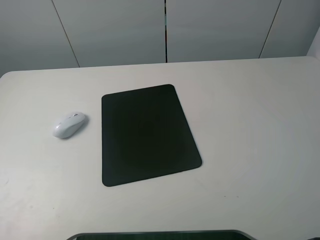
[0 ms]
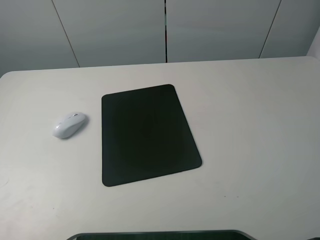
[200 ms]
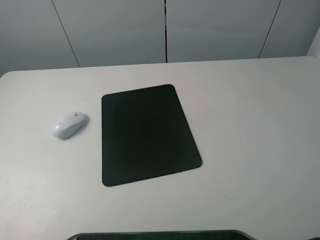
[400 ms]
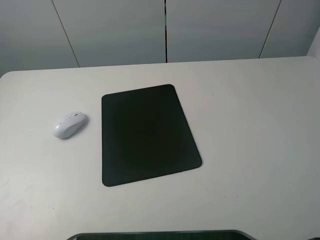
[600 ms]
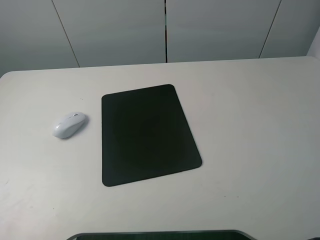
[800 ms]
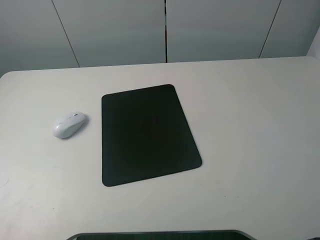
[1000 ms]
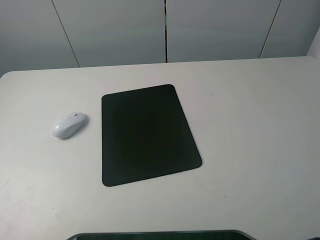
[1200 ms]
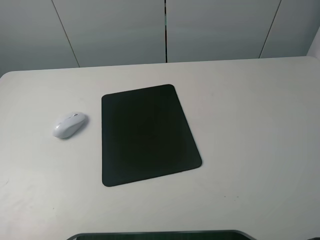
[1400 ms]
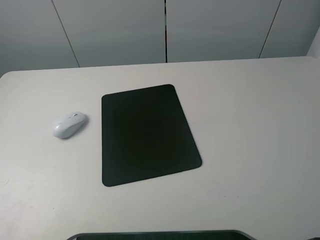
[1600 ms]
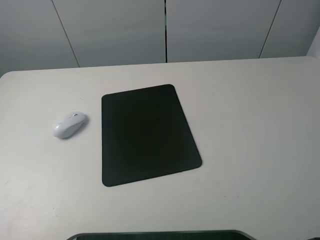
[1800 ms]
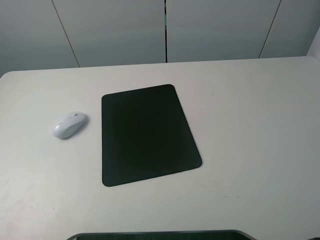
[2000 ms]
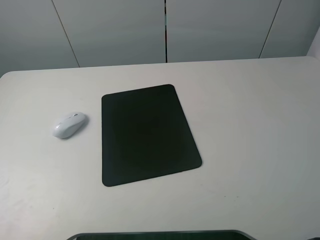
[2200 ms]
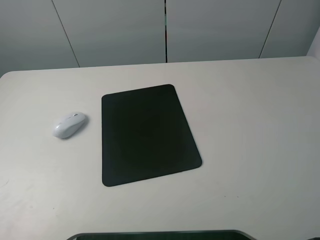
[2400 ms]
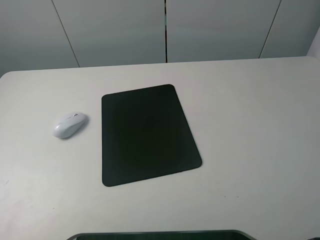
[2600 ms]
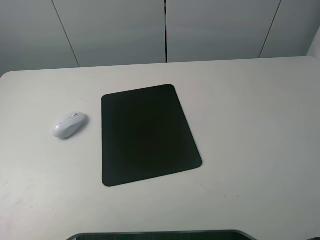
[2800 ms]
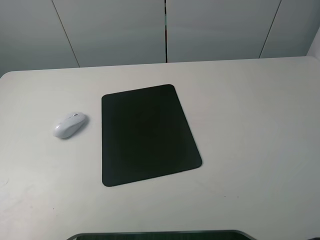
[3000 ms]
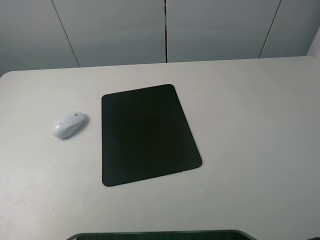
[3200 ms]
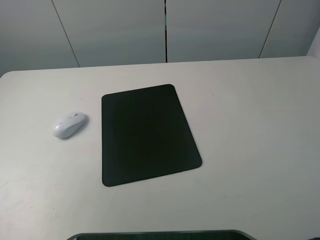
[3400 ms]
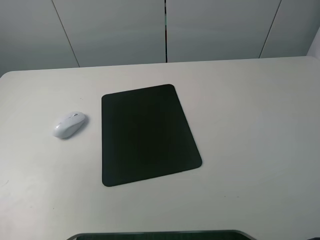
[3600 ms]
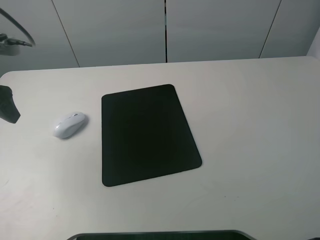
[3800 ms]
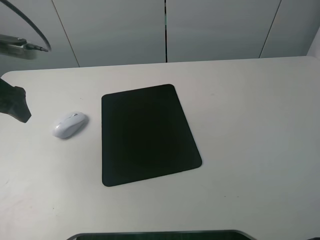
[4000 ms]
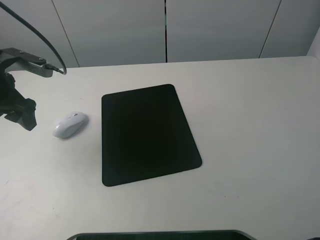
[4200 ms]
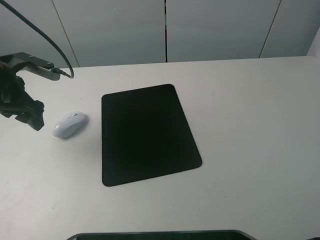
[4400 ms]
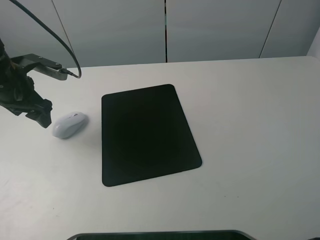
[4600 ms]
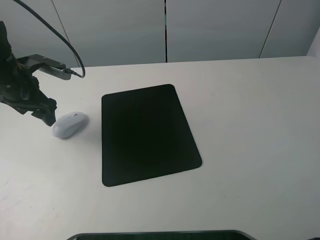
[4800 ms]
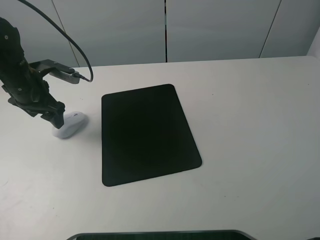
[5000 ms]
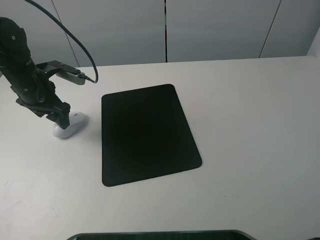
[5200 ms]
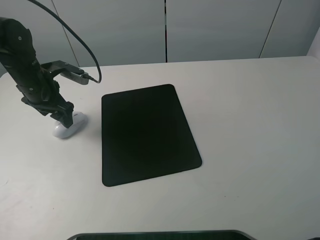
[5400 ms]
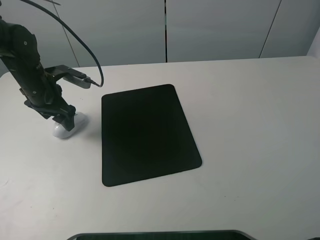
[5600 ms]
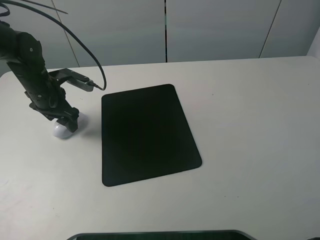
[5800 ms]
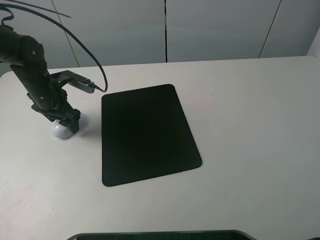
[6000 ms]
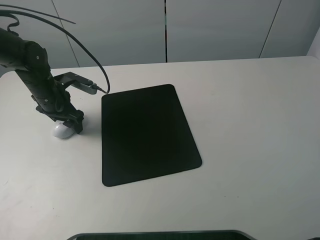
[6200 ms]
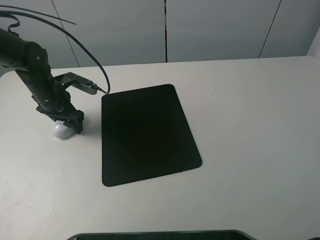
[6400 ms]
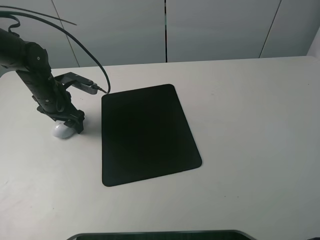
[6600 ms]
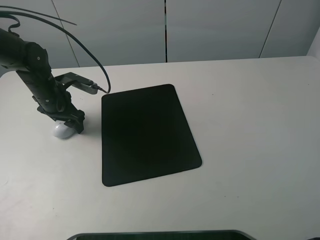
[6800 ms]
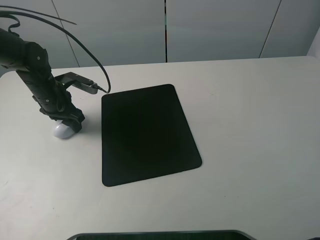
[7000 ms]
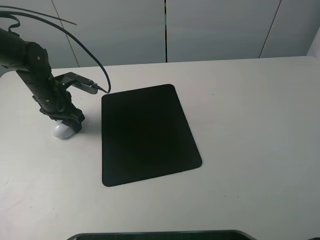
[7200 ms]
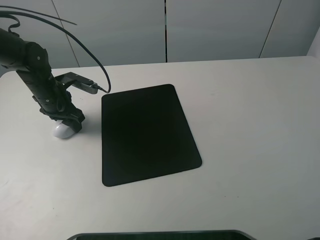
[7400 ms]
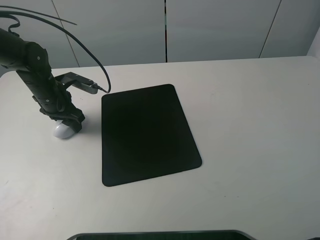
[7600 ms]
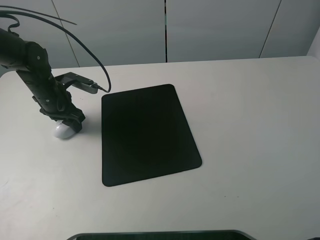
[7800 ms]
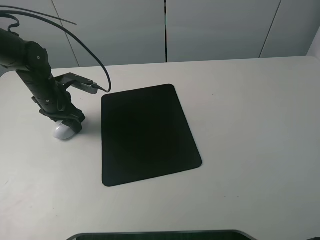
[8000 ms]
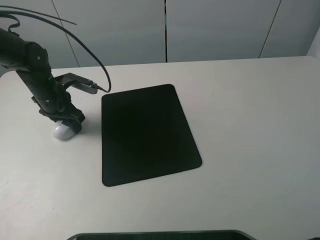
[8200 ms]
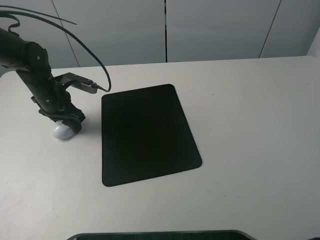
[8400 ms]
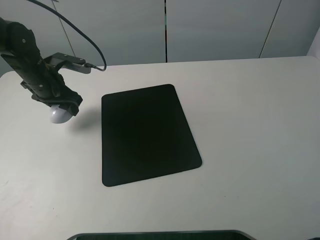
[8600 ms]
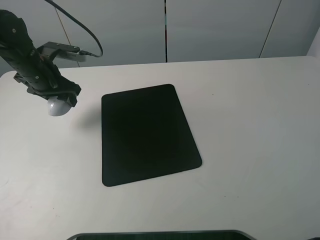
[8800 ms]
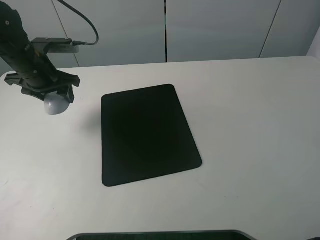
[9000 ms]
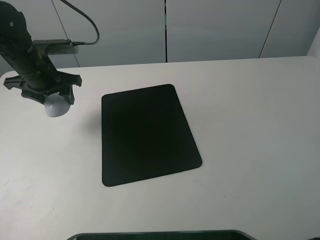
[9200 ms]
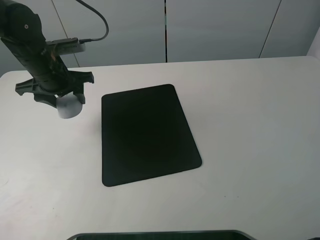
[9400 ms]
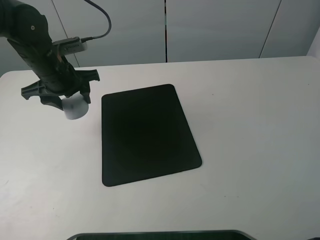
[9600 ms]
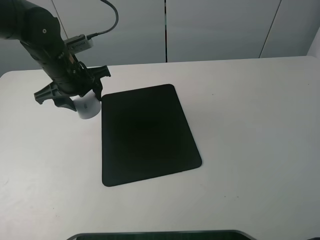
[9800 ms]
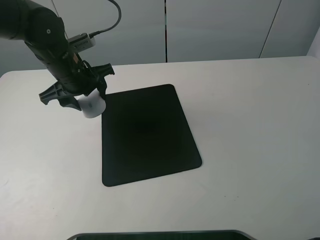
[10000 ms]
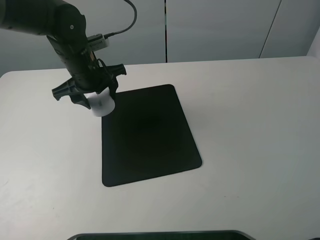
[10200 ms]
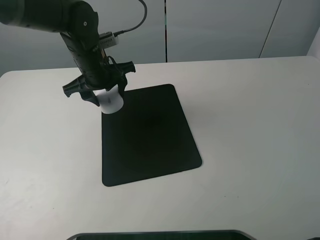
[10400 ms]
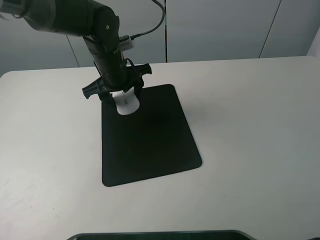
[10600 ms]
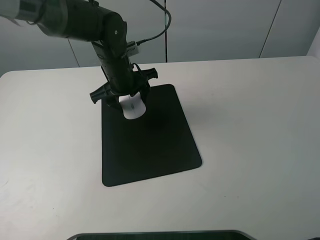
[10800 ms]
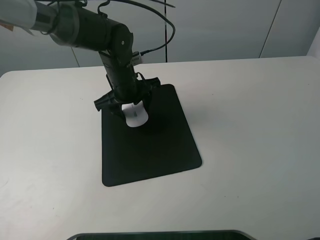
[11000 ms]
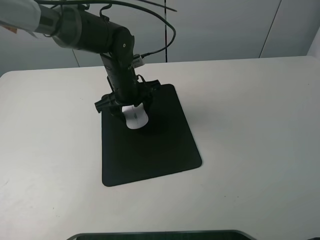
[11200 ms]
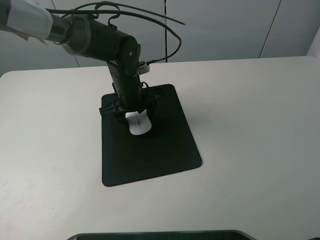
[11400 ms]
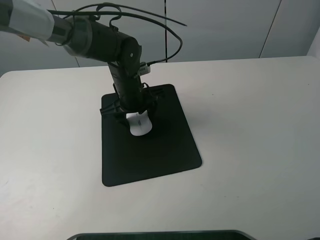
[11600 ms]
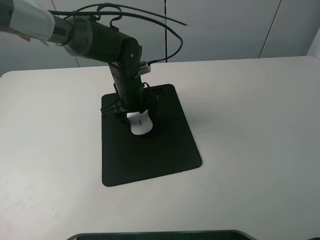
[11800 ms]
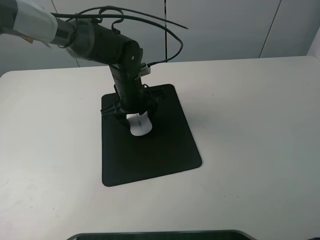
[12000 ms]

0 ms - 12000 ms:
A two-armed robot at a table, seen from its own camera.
Step, 0 ms - 7600 ms: Grasp the mouse with the left gripper.
0 ms - 1600 ms: Both grippers stay about where they are.
3000 ms - 4400 ms: The left gripper goes about 25 cm forward and downward.
4400 ms - 6000 ms: The left gripper is displaced downward and forward by approximately 10 cm.
6000 ms - 7600 ms: The left gripper closes up.
7600 ms - 9000 ms: The left gripper moves upward, approximately 10 cm.
9000 ms - 10400 ms: The left gripper heads to the right, covering about 15 cm.
10400 ms - 12000 ms: The left gripper shifts roughly 10 cm downward and to the right.

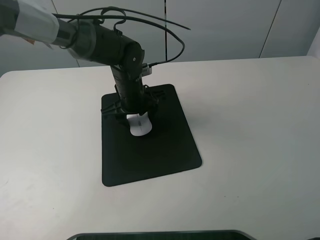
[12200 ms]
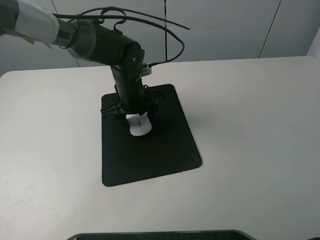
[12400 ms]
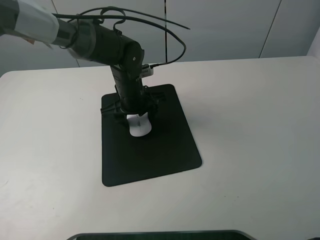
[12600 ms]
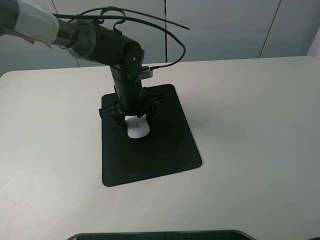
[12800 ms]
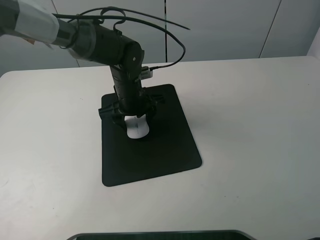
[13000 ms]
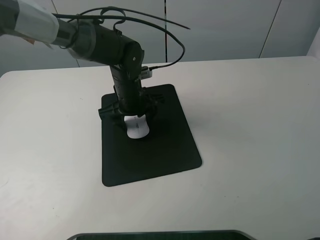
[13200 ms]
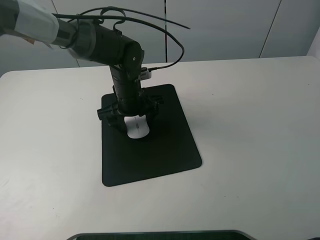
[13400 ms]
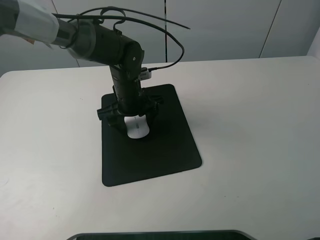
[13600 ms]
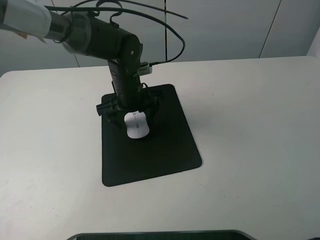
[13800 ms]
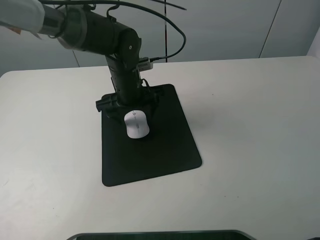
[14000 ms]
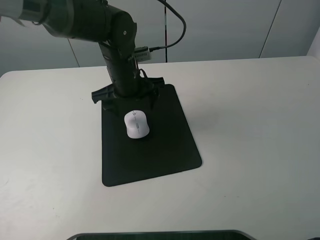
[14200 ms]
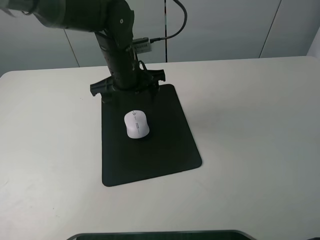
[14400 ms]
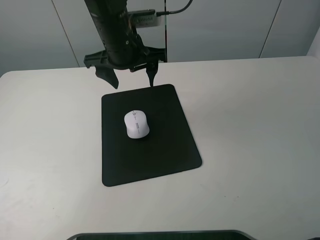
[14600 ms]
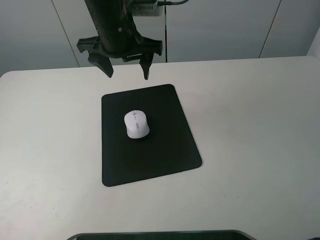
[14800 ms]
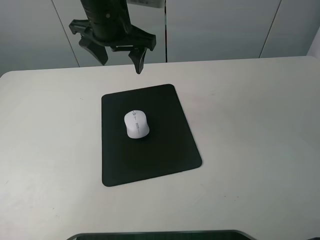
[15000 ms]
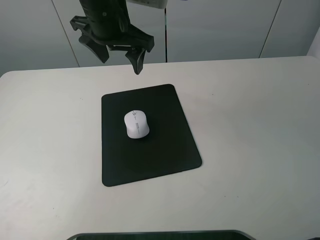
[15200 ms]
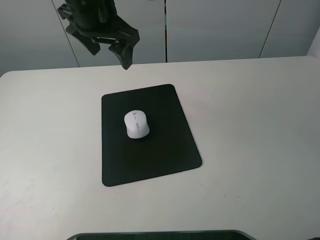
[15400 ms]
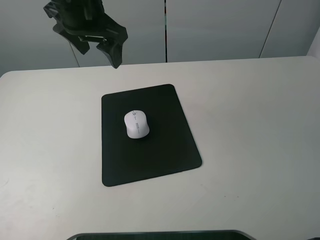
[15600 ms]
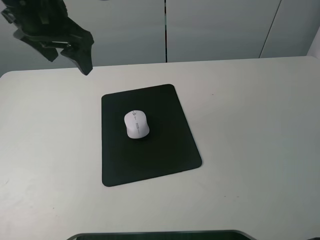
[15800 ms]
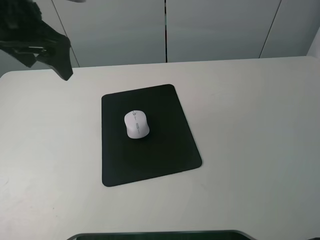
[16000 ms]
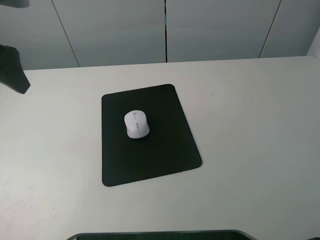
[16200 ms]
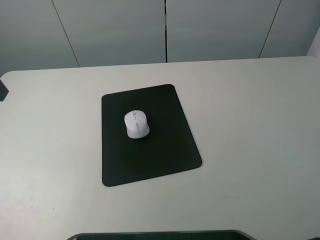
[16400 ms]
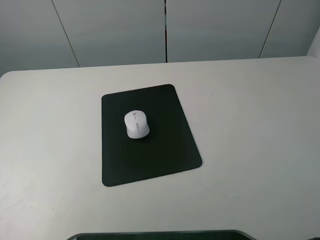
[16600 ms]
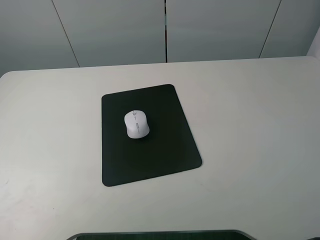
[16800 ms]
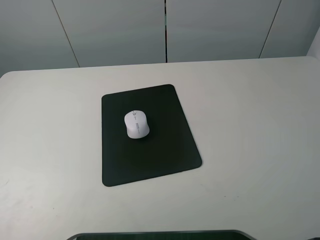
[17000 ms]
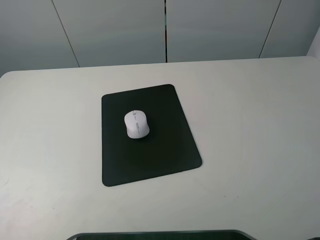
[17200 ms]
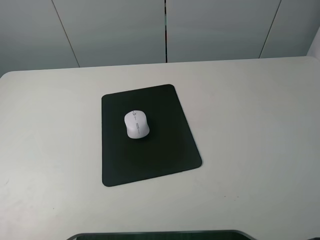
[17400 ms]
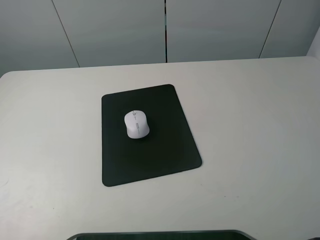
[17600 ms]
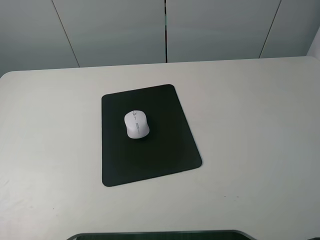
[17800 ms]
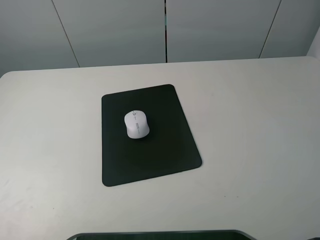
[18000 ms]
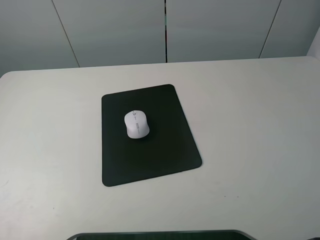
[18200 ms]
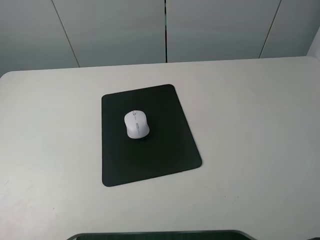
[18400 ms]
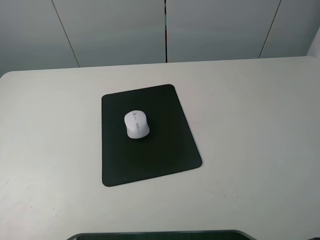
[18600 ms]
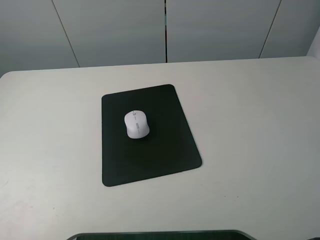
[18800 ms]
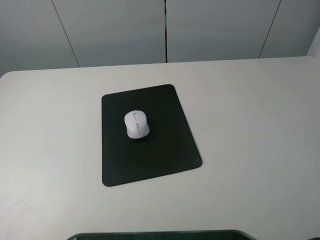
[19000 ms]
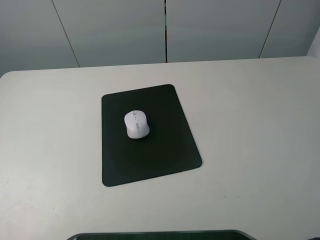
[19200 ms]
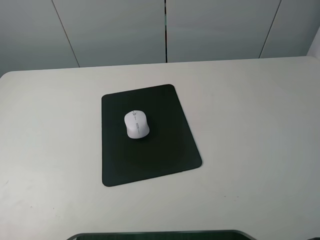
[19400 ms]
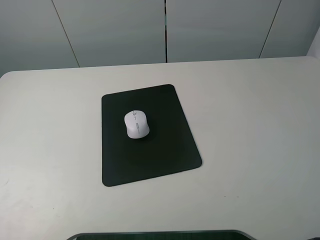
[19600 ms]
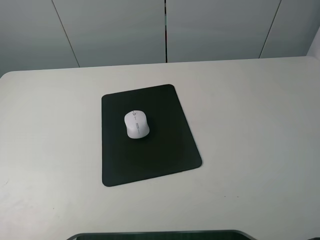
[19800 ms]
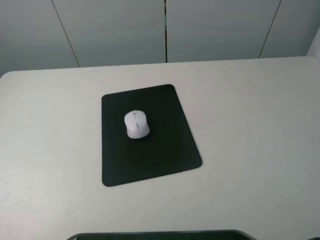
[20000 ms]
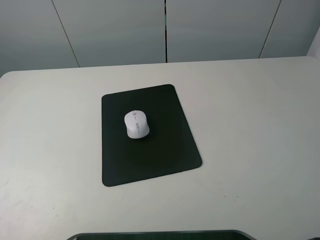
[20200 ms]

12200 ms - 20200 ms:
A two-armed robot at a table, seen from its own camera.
12200 ms - 13800 ms: The left gripper opens up.
13800 ms - 15400 ms: The left gripper shifts some 20 cm upward.
15400 ms - 17000 ms: The left gripper travels backward and to the left by approximately 35 cm.
18600 ms - 20200 ms: Both grippers stay about where they are.

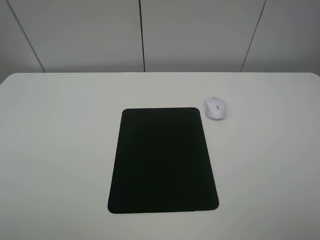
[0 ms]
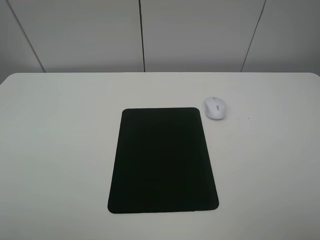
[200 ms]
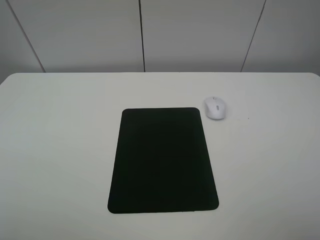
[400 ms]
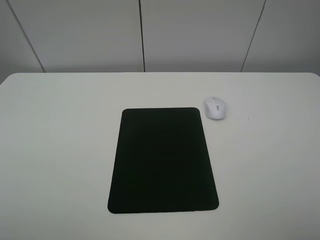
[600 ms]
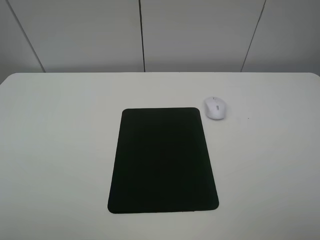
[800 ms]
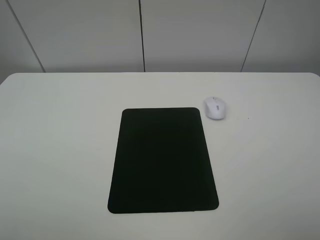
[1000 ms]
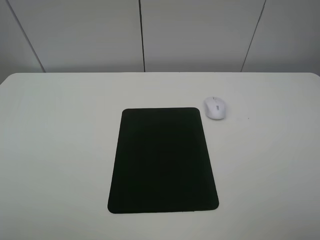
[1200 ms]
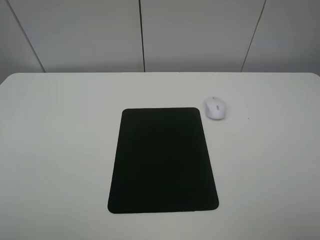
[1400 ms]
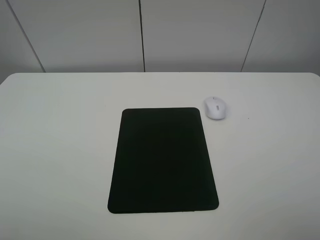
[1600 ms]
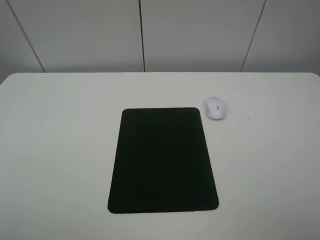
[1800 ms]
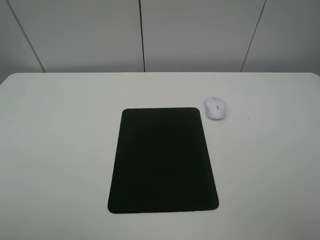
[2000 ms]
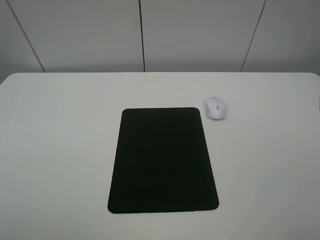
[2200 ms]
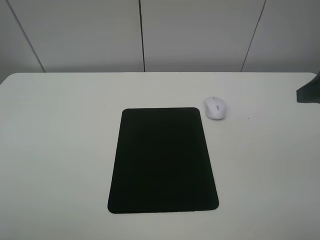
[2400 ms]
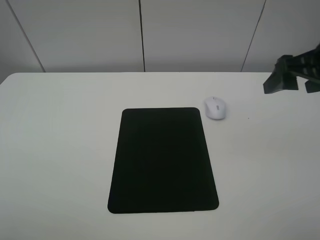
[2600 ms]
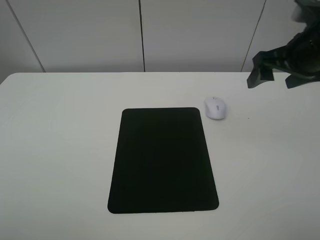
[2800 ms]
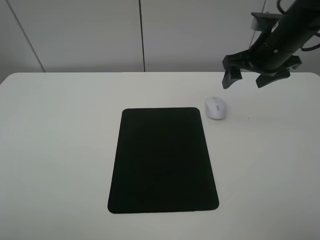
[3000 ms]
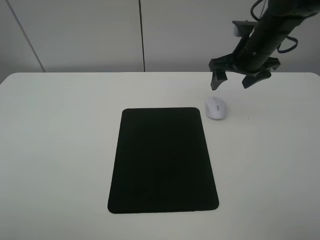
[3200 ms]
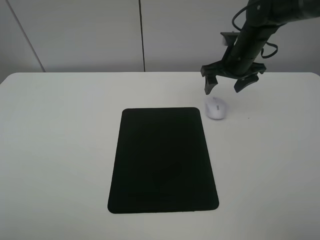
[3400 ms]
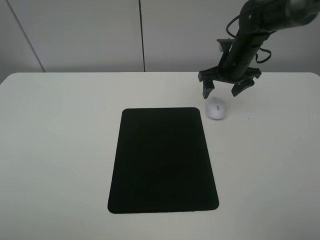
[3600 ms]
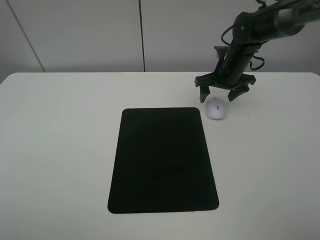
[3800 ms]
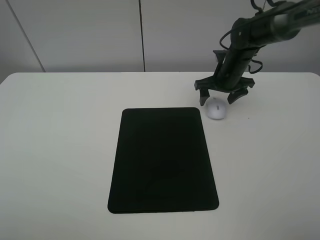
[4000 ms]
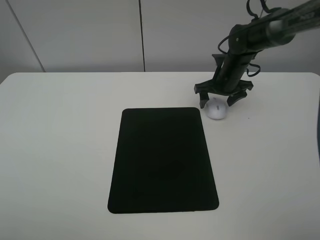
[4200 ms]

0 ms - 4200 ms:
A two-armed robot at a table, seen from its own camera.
0 ms - 1400 ms: Both grippers stay about where they are.
1400 ms - 2800 ms: The right gripper is displaced forward by about 30 cm.
2800 ms - 4200 ms: The right gripper heads downward and forward, covering some 20 cm.
